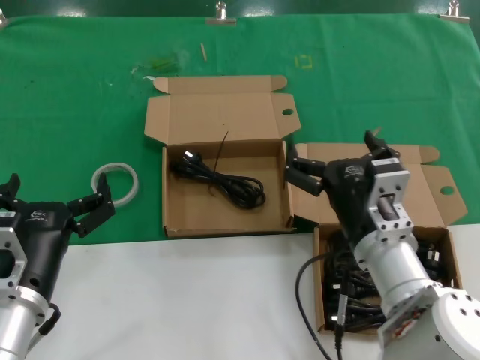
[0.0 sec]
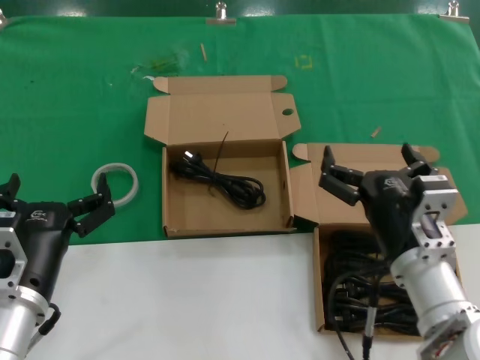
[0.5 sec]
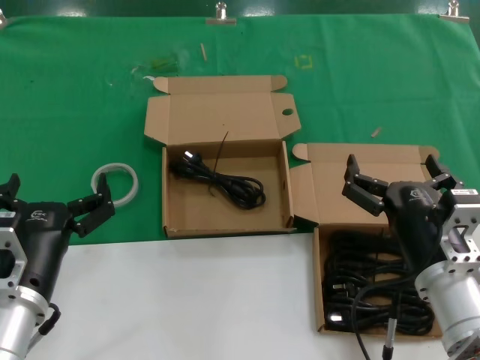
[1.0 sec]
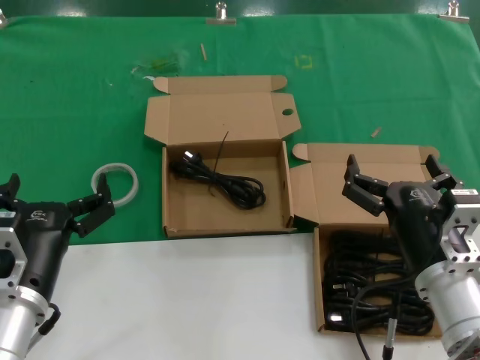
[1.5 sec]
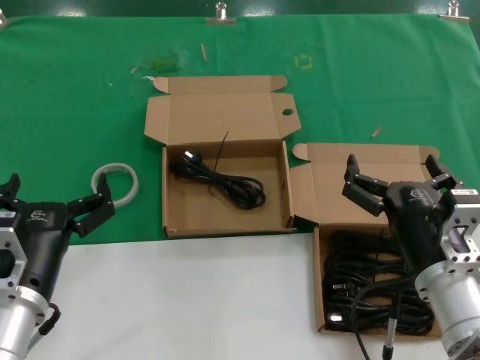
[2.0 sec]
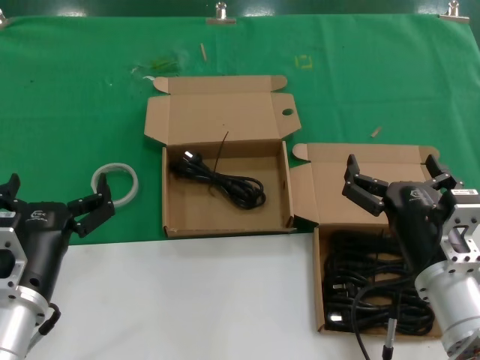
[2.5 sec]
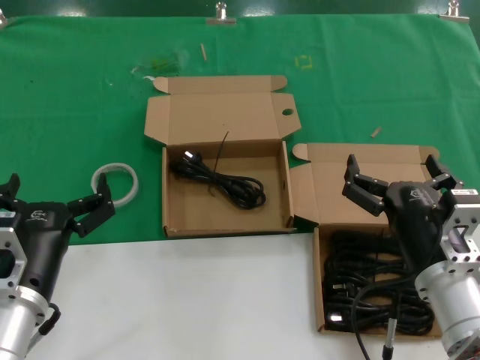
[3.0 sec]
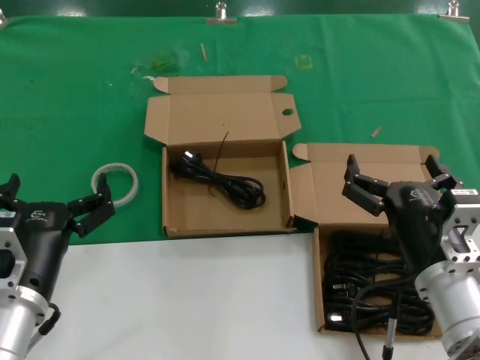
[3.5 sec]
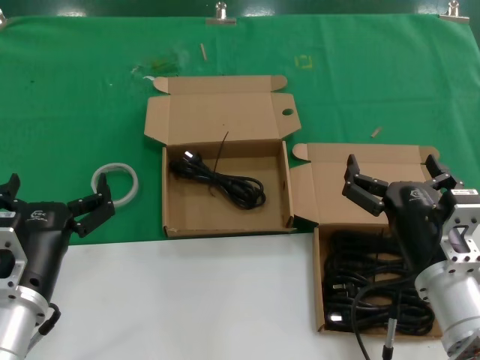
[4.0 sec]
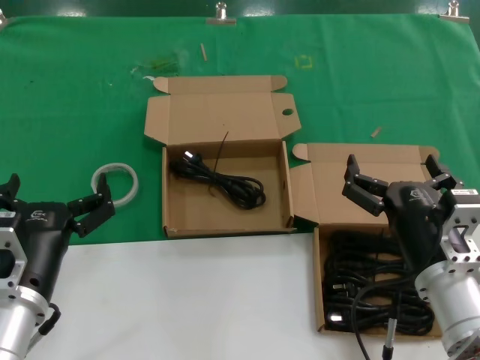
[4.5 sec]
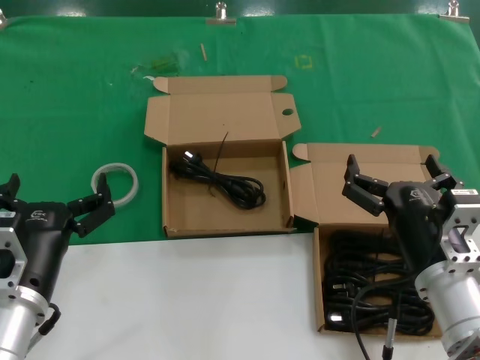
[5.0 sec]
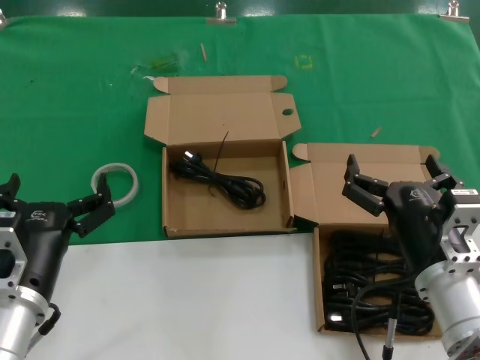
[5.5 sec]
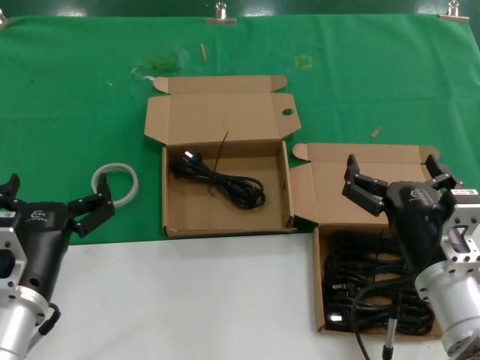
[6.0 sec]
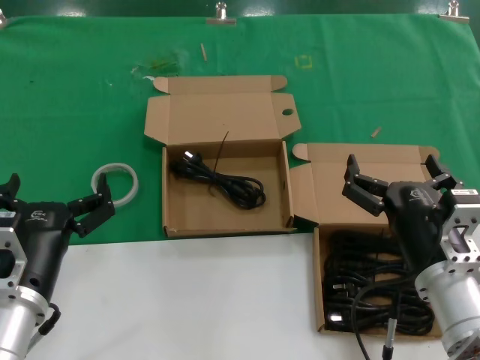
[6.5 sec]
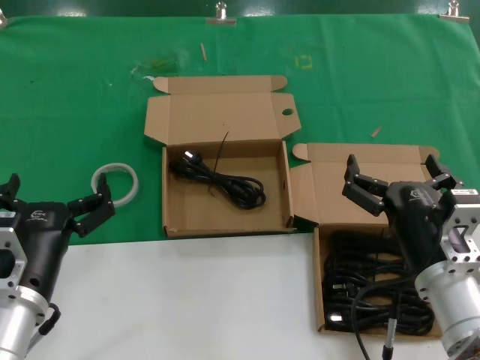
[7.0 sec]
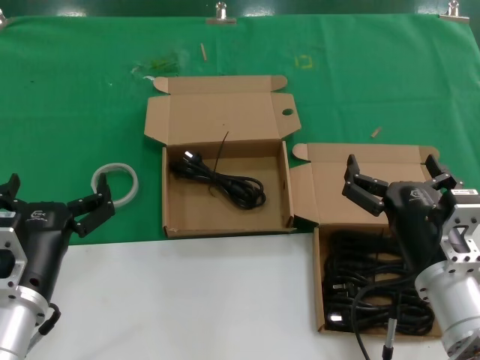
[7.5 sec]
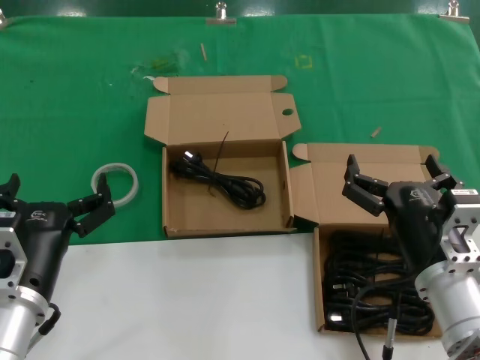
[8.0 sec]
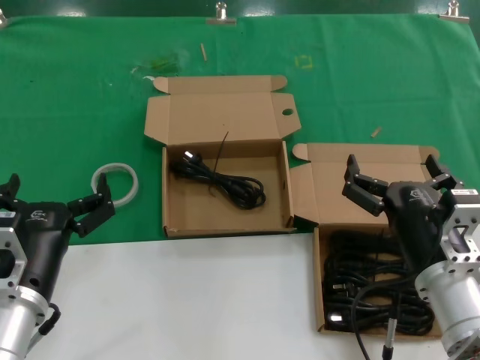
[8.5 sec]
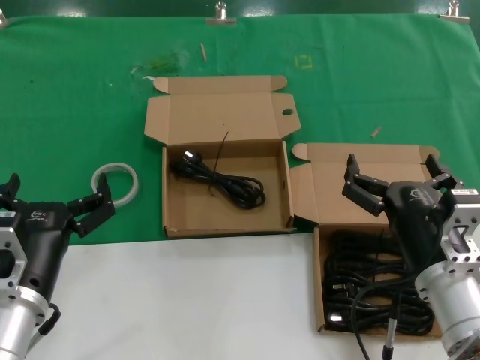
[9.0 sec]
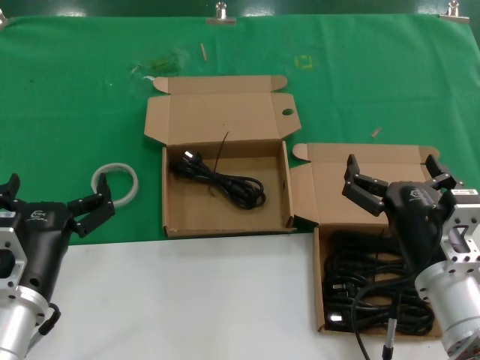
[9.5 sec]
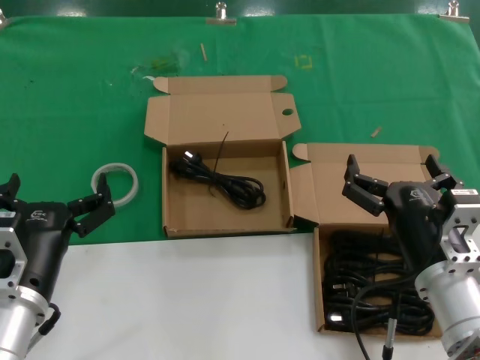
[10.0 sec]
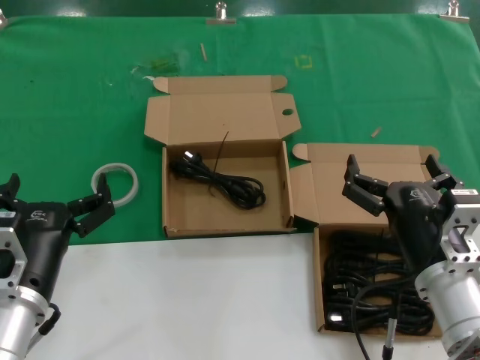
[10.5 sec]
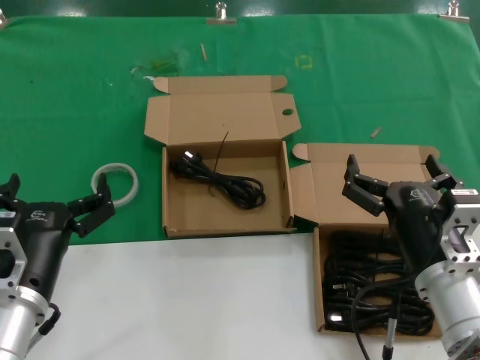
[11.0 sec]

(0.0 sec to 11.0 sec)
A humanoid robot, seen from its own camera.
Task of the whole recording: take the parts from the box containing them and put them into an empty box.
0.0 sec - 2.0 sec: The right hand is displaced to the right by some 5 cm.
2.0 sec - 11.0 sec: Both hands stay put.
